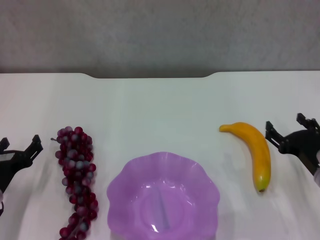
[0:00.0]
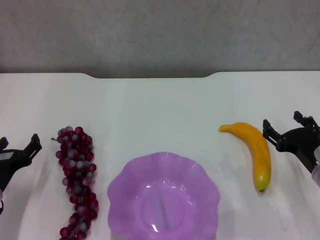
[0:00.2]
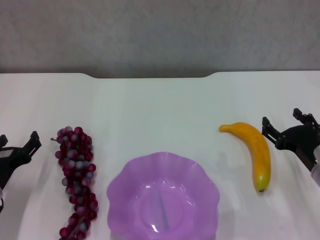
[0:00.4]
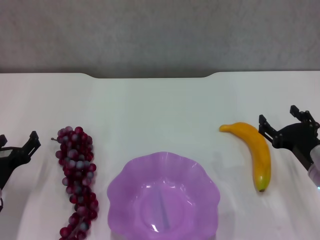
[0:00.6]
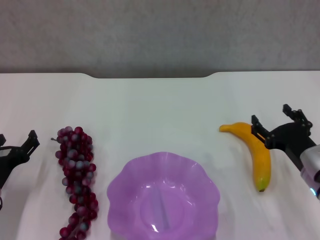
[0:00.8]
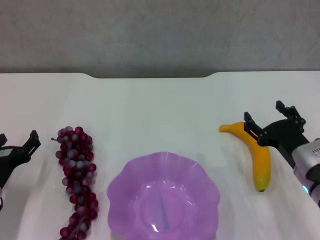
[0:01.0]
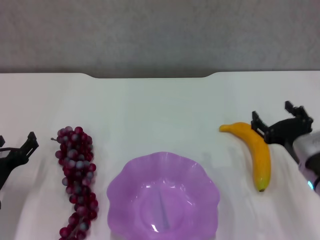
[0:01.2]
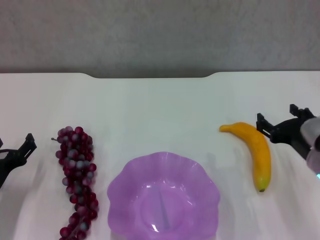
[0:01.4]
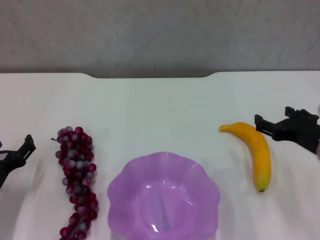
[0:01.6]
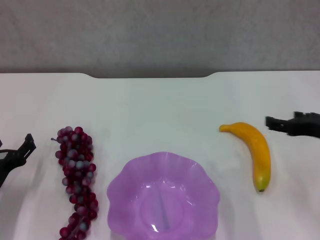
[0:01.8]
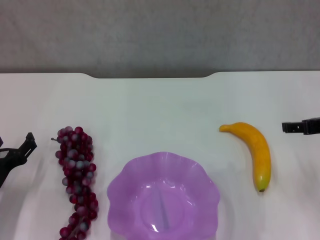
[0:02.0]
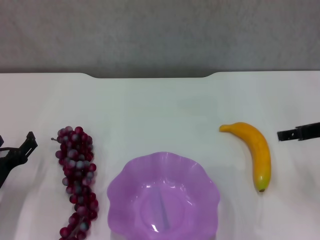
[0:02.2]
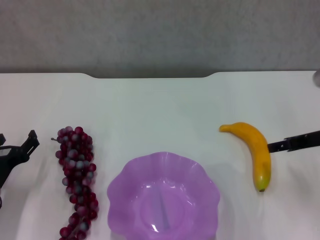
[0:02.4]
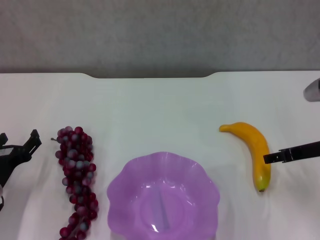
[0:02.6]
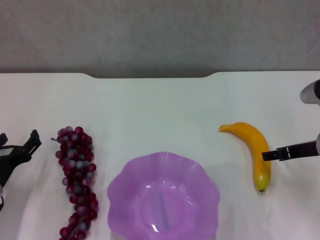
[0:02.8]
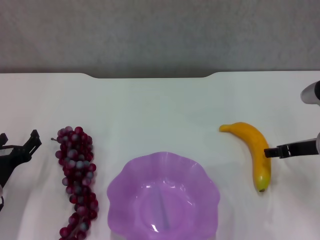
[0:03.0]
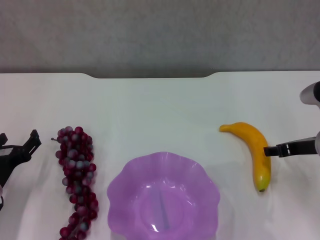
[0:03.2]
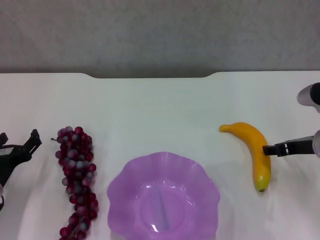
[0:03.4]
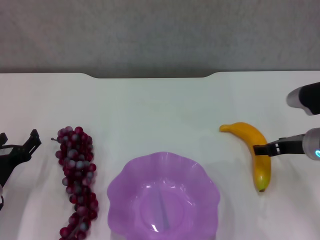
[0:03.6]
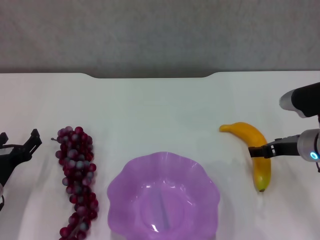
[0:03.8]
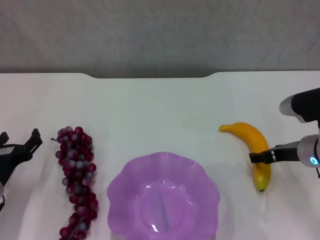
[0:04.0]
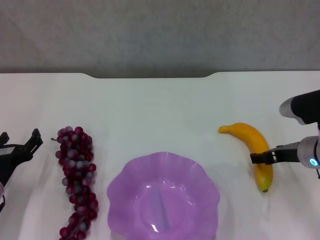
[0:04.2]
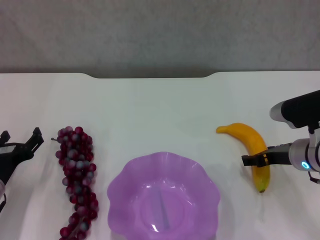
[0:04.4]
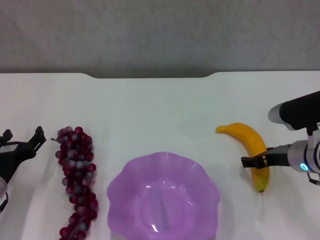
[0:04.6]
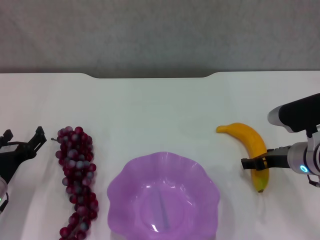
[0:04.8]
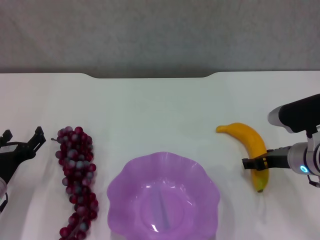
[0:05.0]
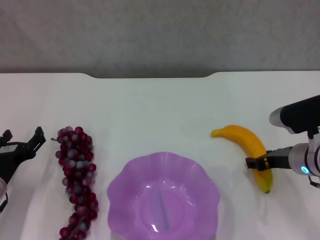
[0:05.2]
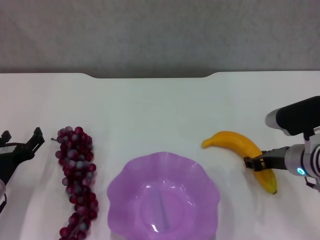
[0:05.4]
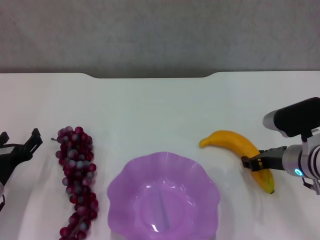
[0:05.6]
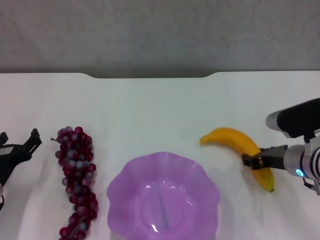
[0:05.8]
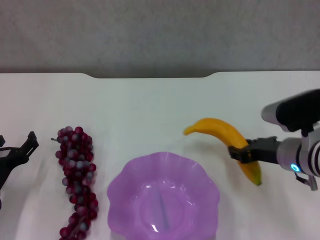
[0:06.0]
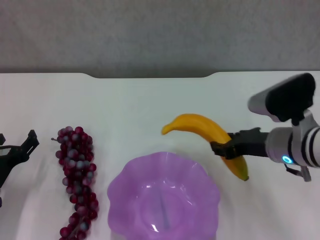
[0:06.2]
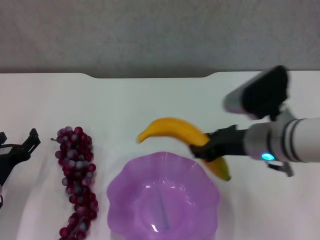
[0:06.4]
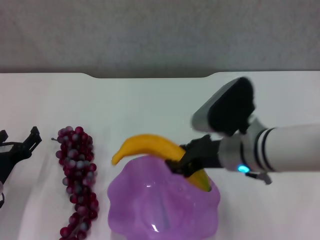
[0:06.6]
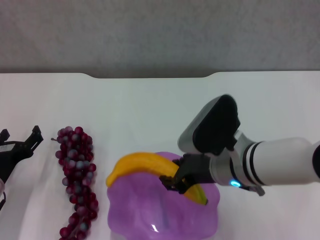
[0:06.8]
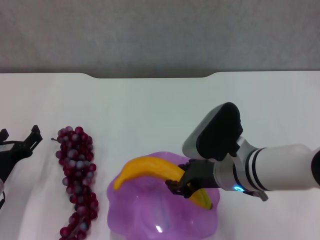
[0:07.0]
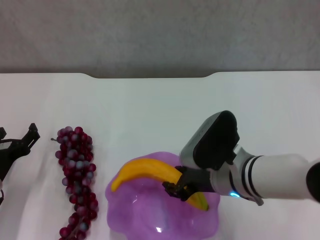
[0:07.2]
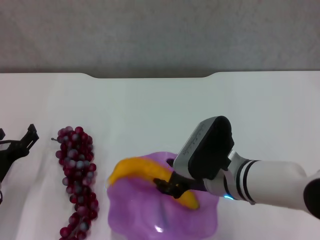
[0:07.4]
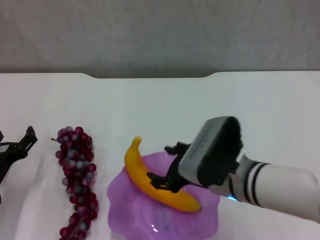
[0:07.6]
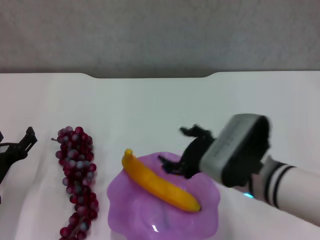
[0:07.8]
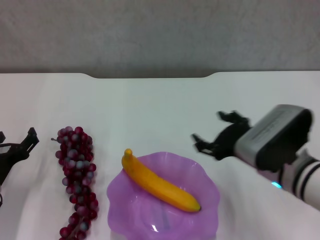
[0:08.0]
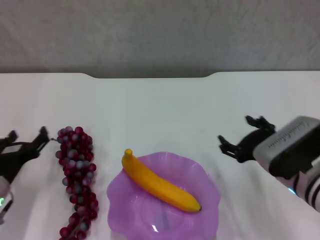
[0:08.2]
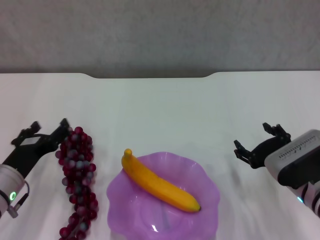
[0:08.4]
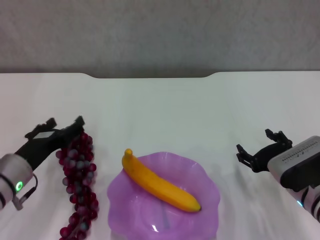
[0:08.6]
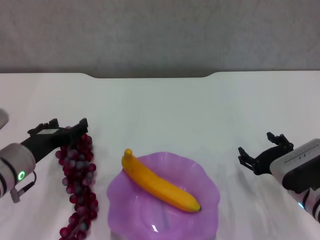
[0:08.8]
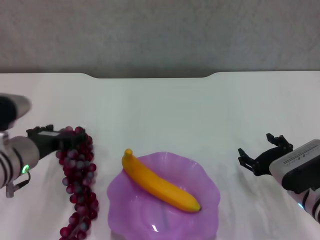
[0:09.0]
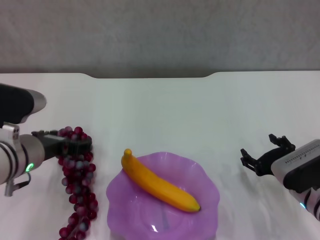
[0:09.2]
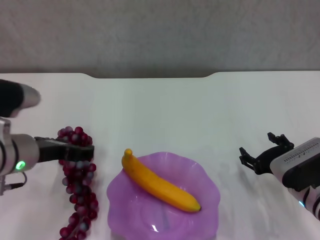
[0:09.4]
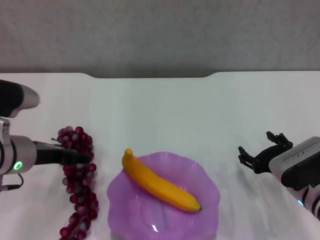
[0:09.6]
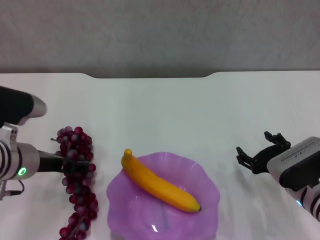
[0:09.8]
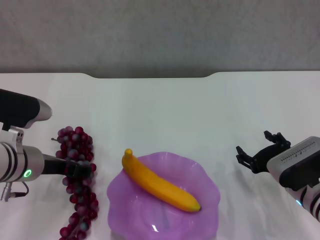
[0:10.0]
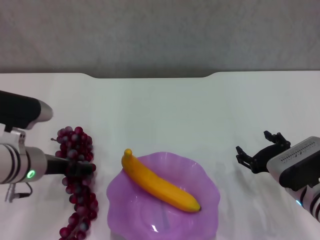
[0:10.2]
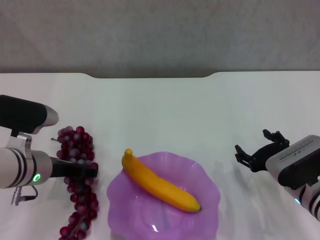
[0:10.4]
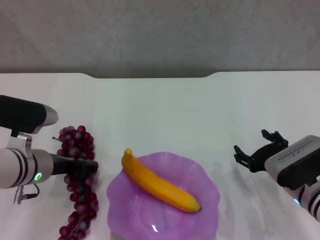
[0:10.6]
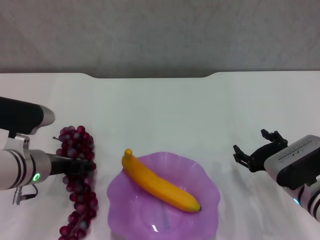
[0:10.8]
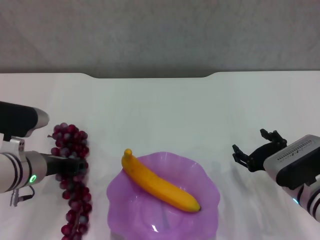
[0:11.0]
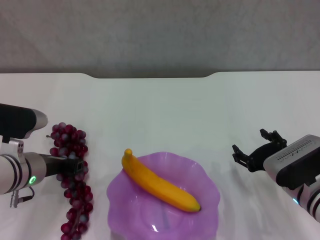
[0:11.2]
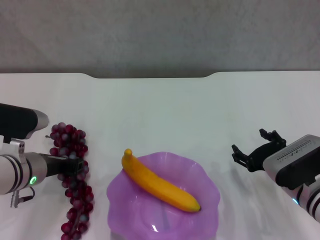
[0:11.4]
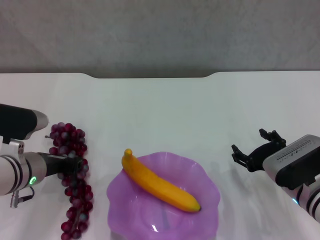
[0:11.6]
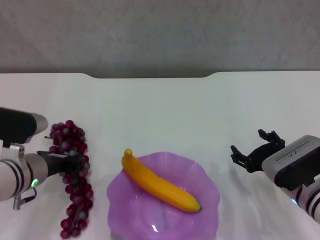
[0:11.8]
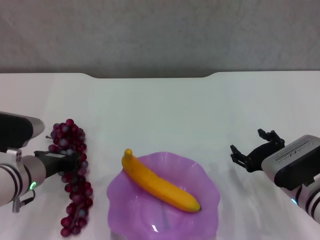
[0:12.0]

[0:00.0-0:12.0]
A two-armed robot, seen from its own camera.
Step, 0:00.0 to 0:05.2: Grasp the banana with right gripper.
Step, 0:05.6 to 0:07.8: Place the banana in the purple plate with right gripper.
Step, 0:08.0 to 0:10.8: Grasp the grape with left gripper.
0:00.0 to 0:01.6: The right gripper heads upward, covering roughly 10 cm.
0:01.6 to 0:03.0: The right gripper goes roughly 5 cm forward.
0:03.0 to 0:04.4: The grippers stay close to where they were, moving slightly.
0:04.4 to 0:06.0: The right gripper closes its fingers.
0:06.0 to 0:07.6: The right gripper heads to the left and backward, covering some 15 cm.
0:07.6 to 0:09.0: The left gripper is displaced upward and to the right by roughly 10 cm. Meanwhile the right gripper goes approximately 15 cm to the right and downward, and opens.
0:10.4 to 0:12.0: The left gripper closes.

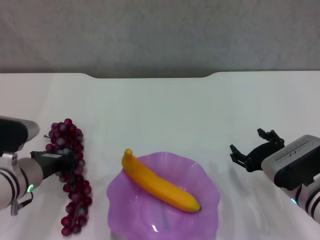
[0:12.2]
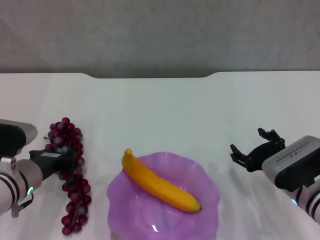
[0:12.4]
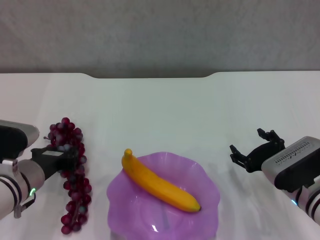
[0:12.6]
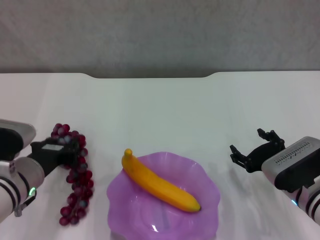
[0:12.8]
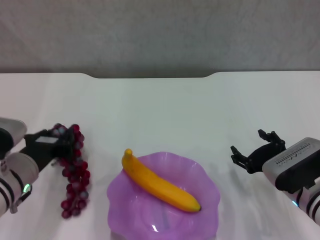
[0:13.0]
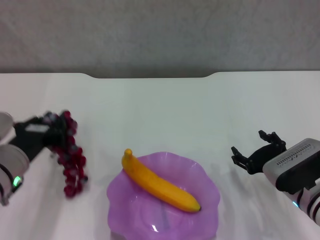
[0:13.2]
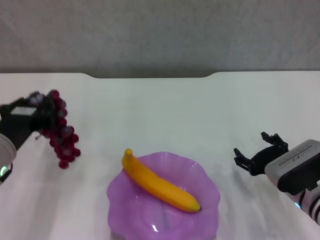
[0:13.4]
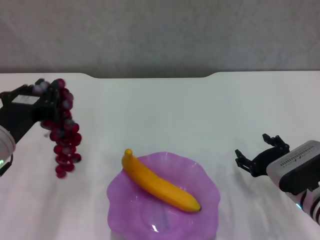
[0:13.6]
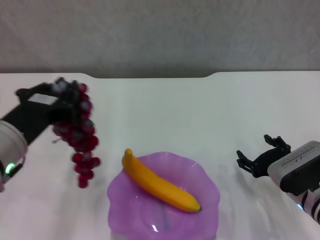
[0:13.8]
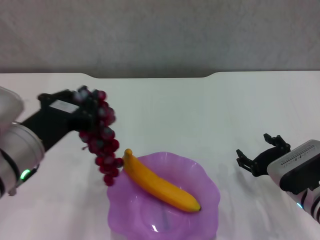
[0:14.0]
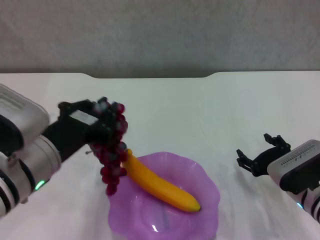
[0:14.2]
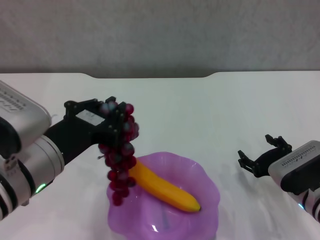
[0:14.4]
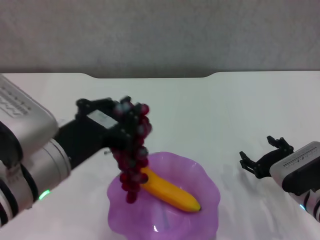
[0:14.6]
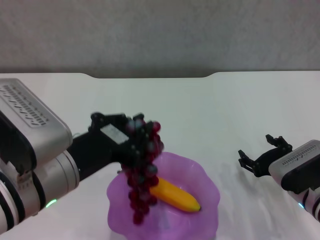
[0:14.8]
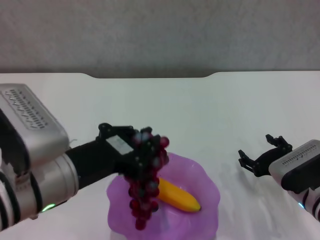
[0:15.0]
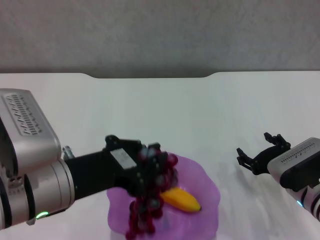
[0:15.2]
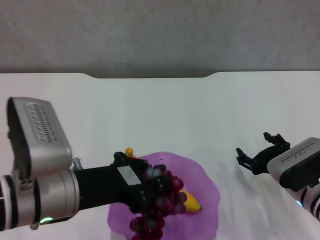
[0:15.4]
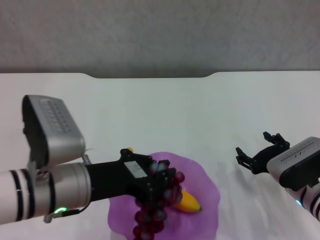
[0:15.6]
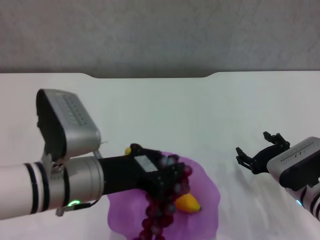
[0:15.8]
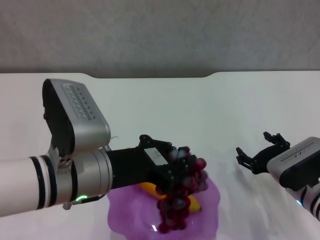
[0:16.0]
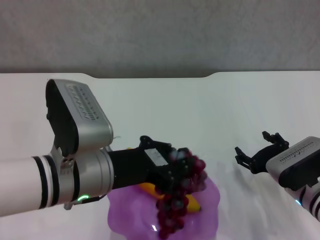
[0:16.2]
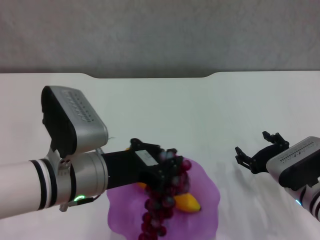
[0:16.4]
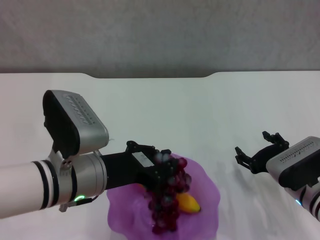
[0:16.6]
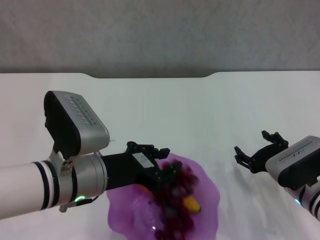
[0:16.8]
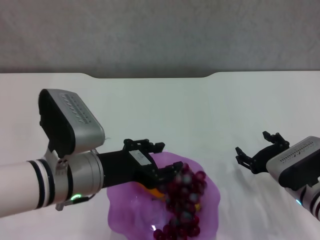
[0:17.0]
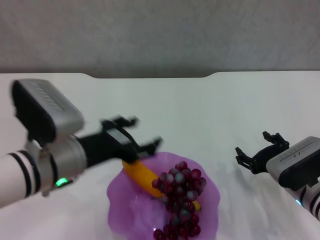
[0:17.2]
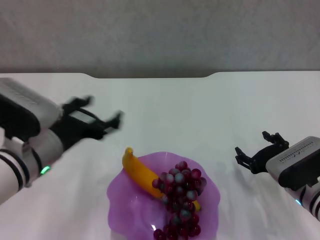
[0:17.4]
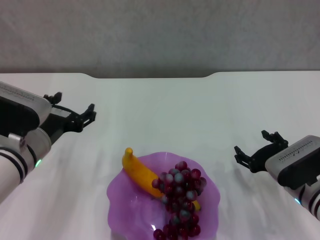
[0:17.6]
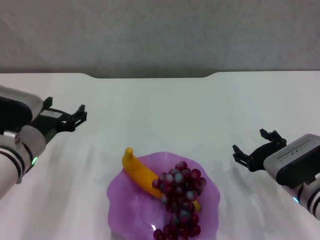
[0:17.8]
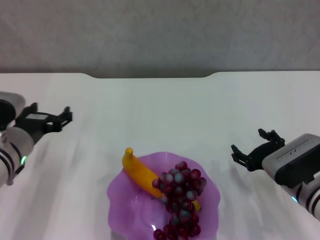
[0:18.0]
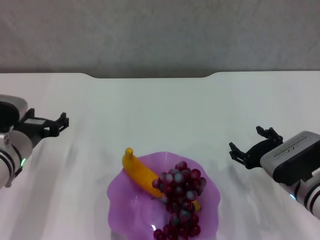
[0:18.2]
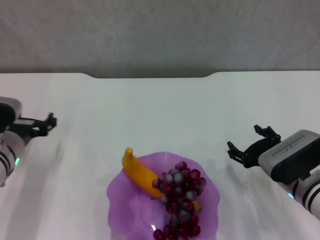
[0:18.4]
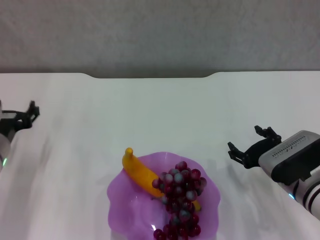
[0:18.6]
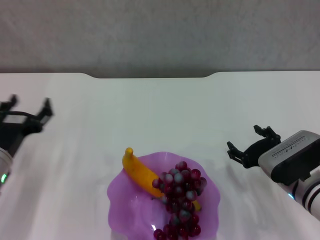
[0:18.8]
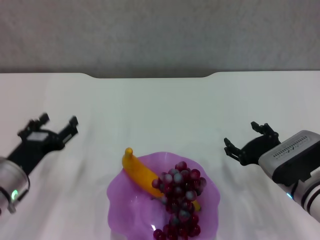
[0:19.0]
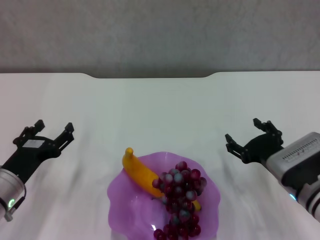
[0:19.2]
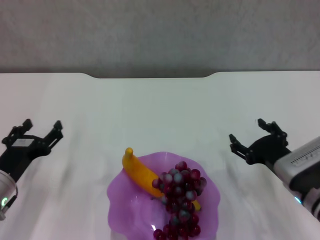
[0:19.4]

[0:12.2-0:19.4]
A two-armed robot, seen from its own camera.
Step, 0:12.2 to 0:17.0: Place the grape in the purple plate with left gripper.
0:12.2 to 0:13.6: The left gripper goes about 10 cm upward.
0:13.6 to 0:15.0: The left gripper goes some 5 cm to the right.
0:15.0 to 0:16.6: The left gripper shifts by about 5 cm.
0:16.6 to 0:18.0: The left gripper shifts some 10 cm to the left and forward, and opens up.
0:18.0 to 0:19.4: The left gripper is displaced downward by about 5 cm.

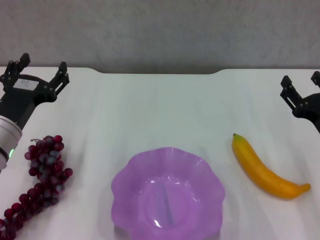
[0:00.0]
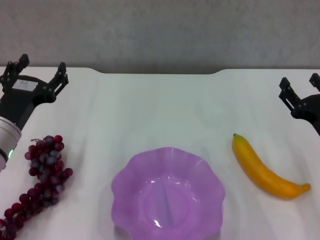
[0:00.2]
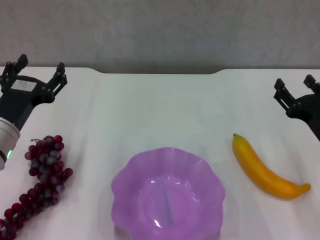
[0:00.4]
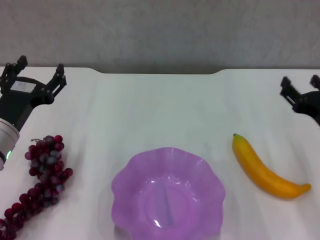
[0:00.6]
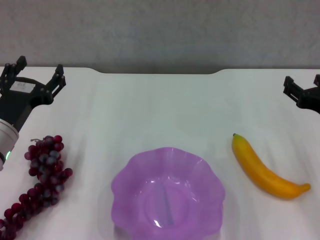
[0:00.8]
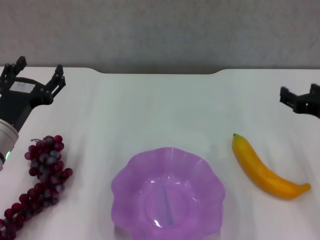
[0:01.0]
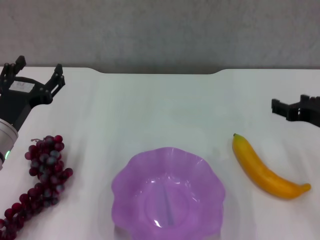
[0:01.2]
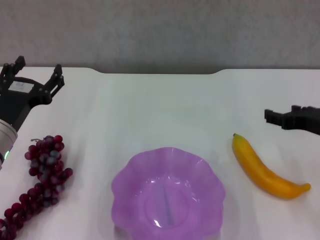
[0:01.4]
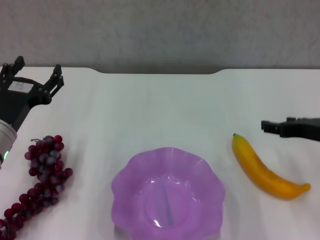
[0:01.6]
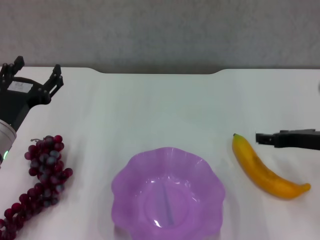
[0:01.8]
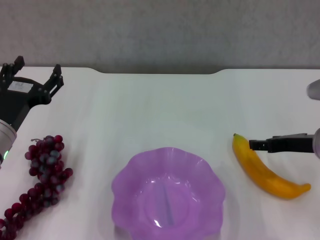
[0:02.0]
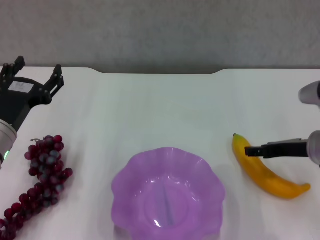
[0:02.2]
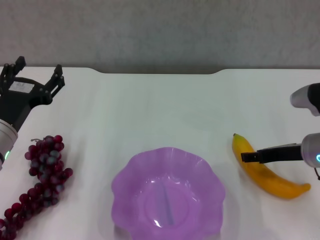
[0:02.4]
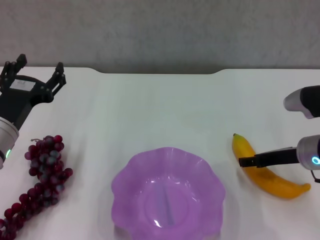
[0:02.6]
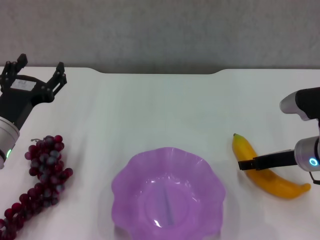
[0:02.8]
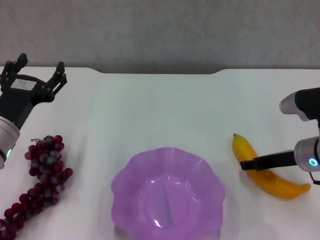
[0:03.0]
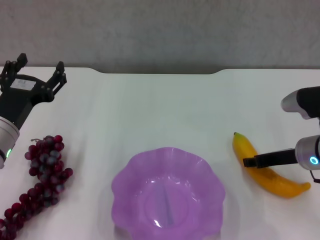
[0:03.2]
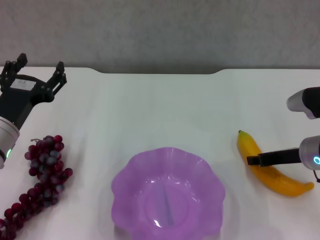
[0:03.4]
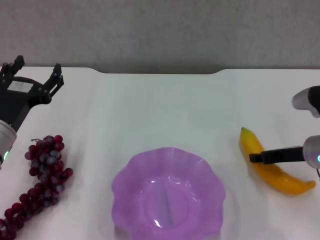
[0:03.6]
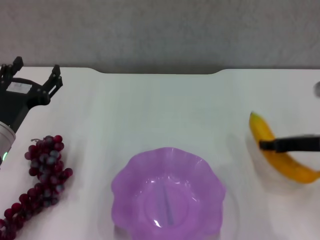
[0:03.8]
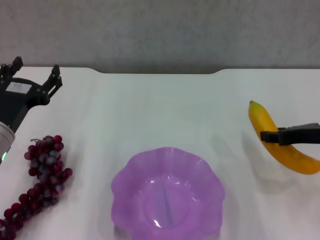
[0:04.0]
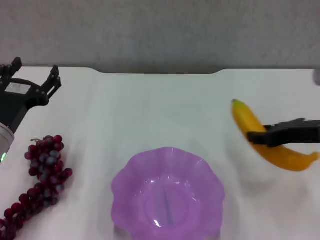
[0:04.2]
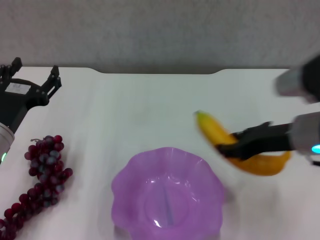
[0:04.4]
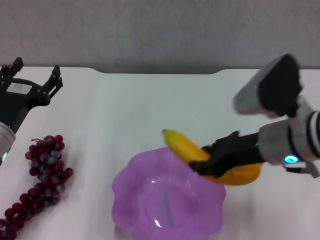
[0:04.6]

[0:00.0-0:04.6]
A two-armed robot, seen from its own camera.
Step, 0:00.0 to 0:03.0: Grasp the banana with right gripper.
0:00.0 to 0:01.6: The right gripper moves approximately 5 cm.
0:01.6 to 0:03.0: The right gripper goes roughly 5 cm downward.
0:03.0 to 0:04.6: The right gripper shifts some 15 cm upward and to the left, and closes its fingers.
